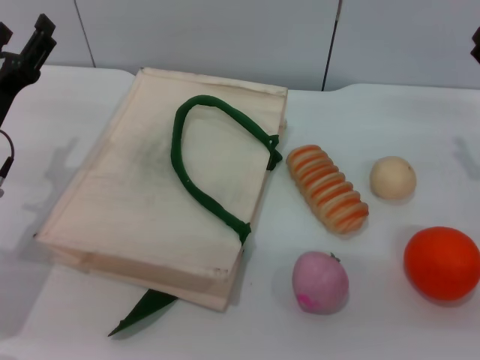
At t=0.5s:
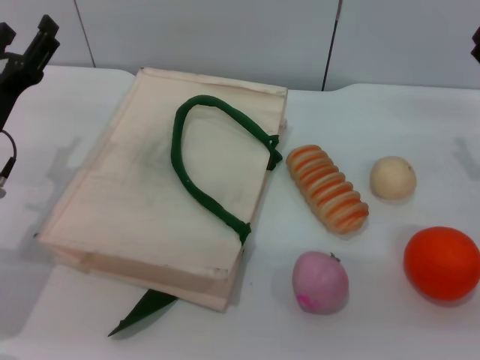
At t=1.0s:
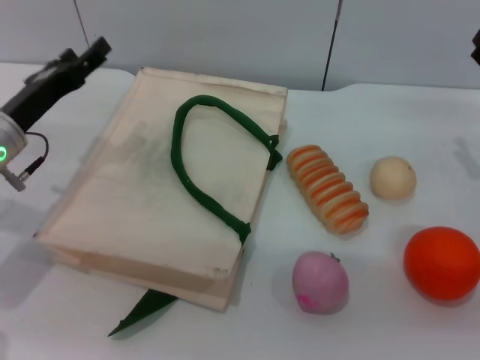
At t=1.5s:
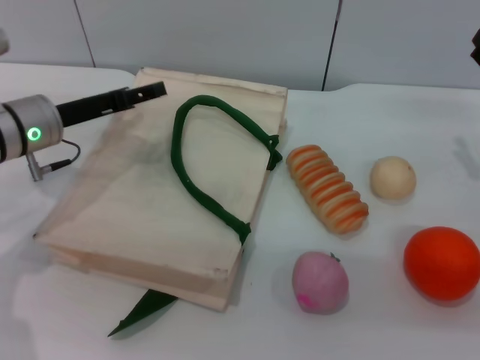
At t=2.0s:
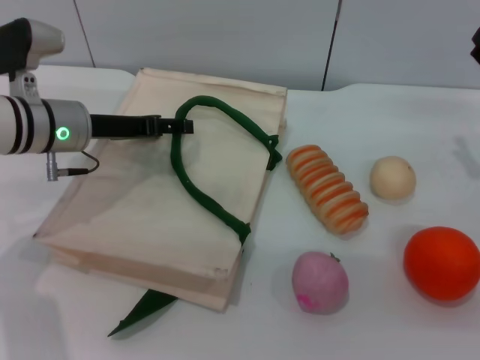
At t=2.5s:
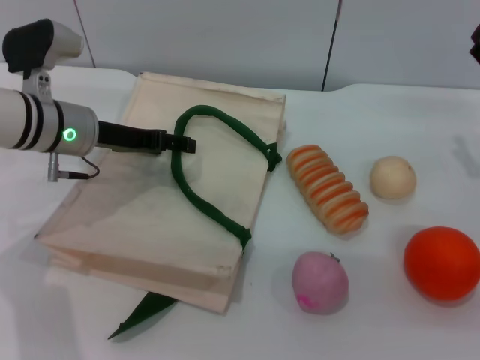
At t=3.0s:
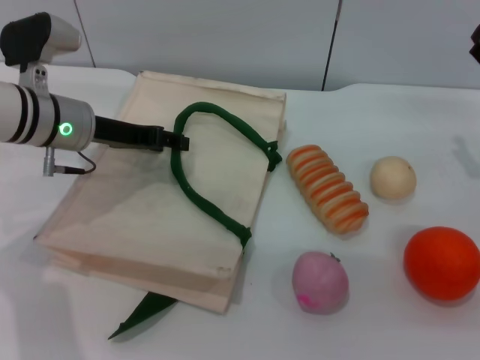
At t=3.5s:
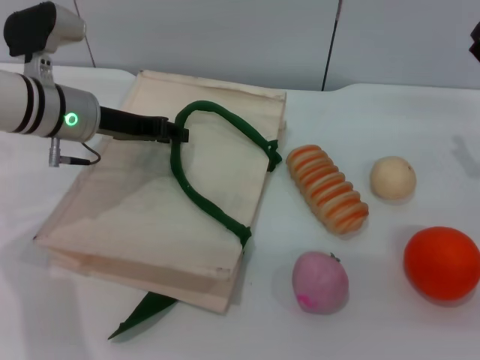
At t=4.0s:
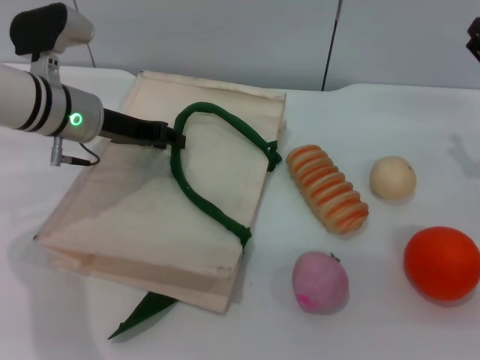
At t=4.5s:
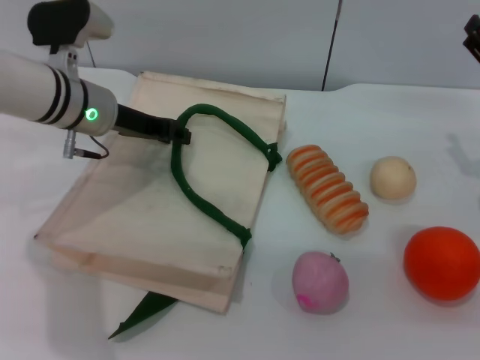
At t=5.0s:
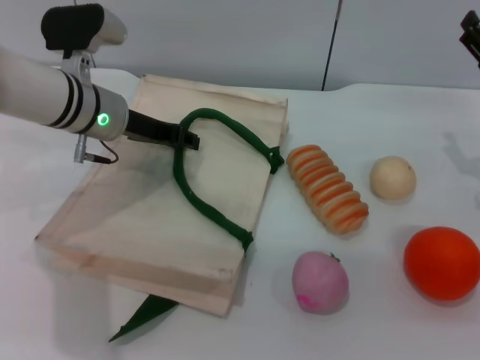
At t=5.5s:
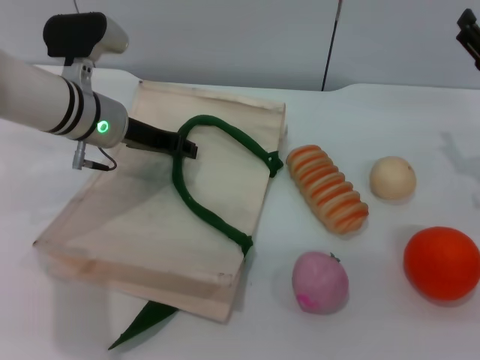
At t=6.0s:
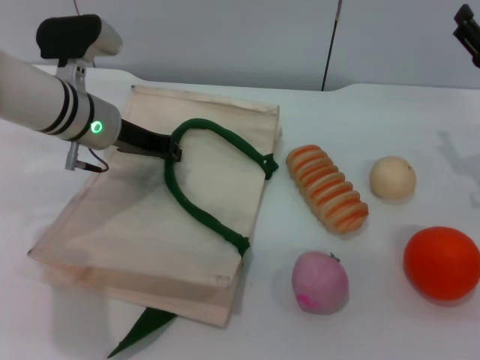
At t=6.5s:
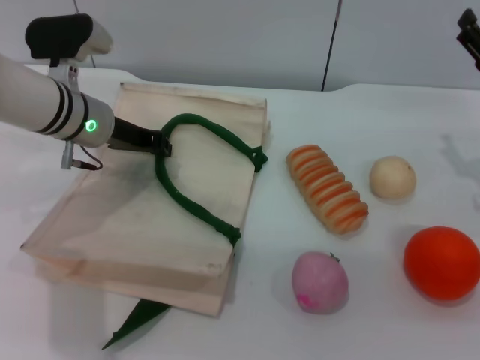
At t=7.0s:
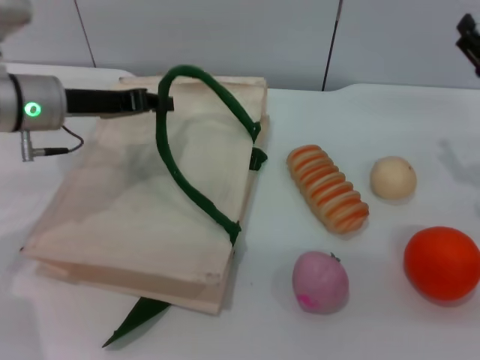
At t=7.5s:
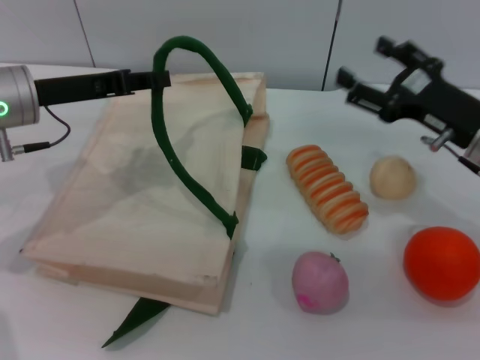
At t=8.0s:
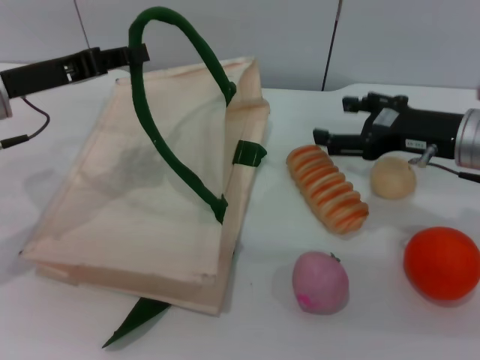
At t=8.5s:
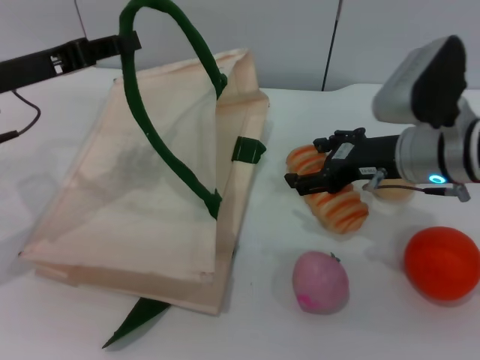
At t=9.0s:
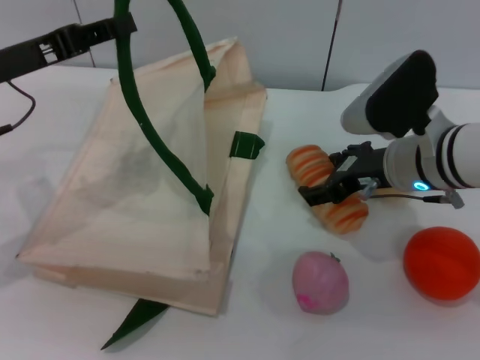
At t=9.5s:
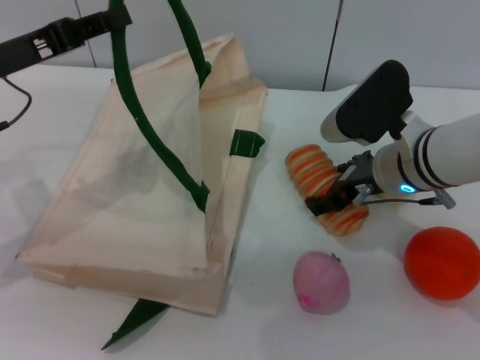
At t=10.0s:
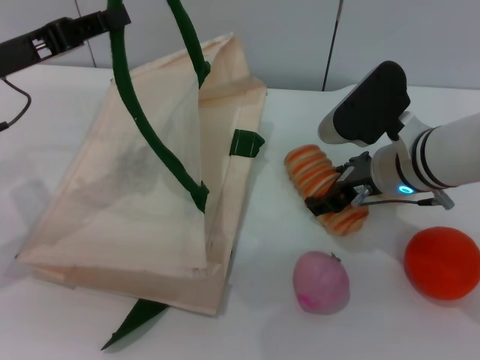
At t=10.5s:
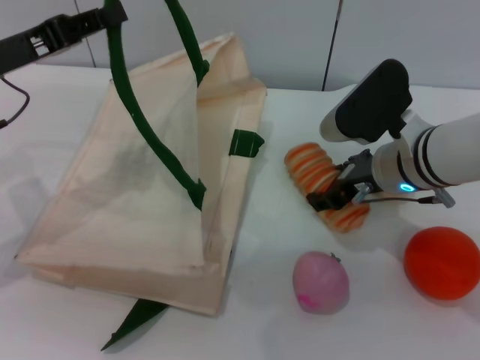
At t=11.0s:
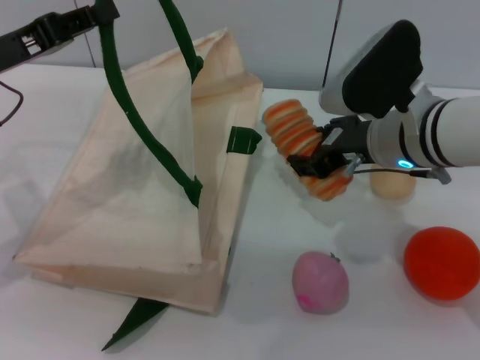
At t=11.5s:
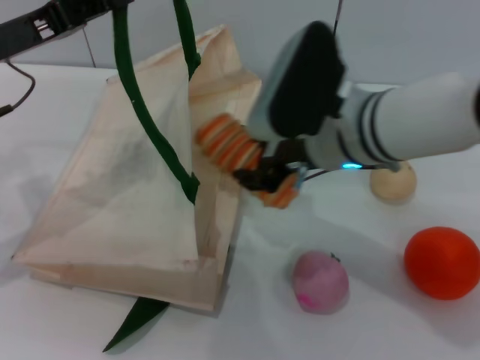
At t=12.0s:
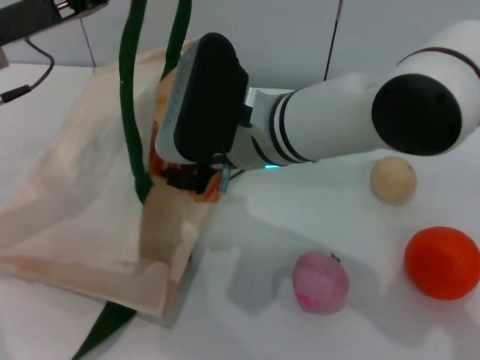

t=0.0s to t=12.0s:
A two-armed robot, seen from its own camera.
Task of the whole recording: pick up the bread and egg yolk pastry from the table and place it in the white handbag.
Step, t=0.0s to t=7.0s: Lift the woven bag with the left gripper to open it.
Step, t=7.5s to t=10.5s: Pick up the bread with the right gripper.
t=0.0s to t=2.0s: The left gripper travels forward by approximately 10 cm.
t=2.0s to t=4.0s: The left gripper closes its fingers.
t=4.0s to t=6.0s: The grippers stay close to where they were, moving slightly.
t=6.0s to t=8.0s: The left gripper travels to the left and backward by some 10 cm; the right gripper is displaced to the left by approximately 5 cm.
t=8.0s to t=10.0s: The right gripper moves to the left, some 10 cm.
t=10.0s to t=12.0s: The right gripper heads to the left and upward, covering approximately 15 cm, and closes its fingers.

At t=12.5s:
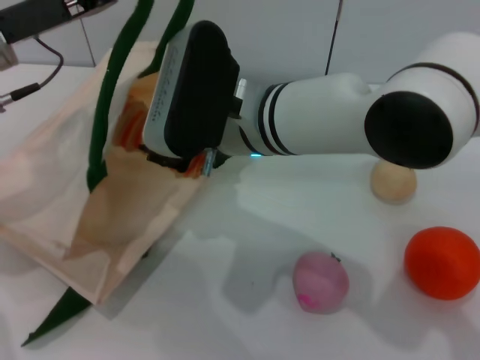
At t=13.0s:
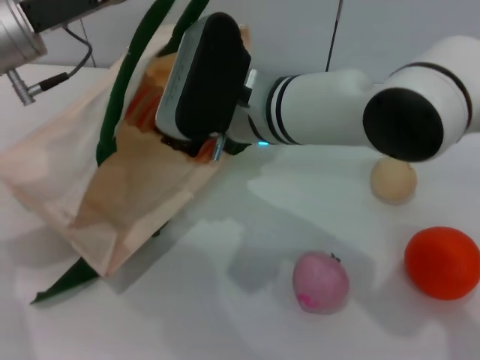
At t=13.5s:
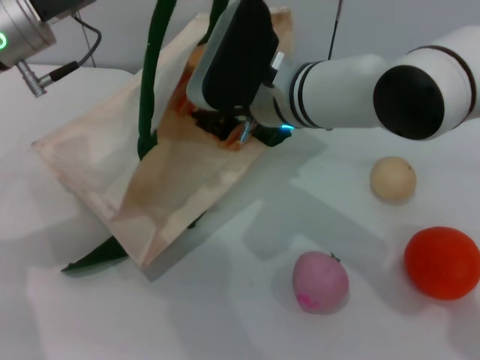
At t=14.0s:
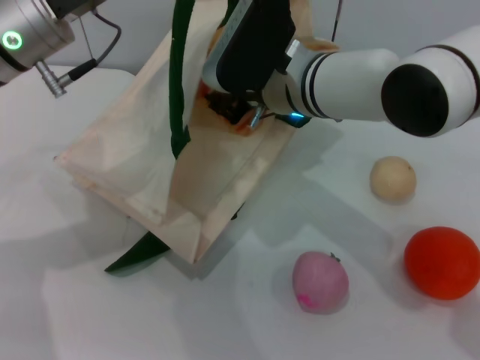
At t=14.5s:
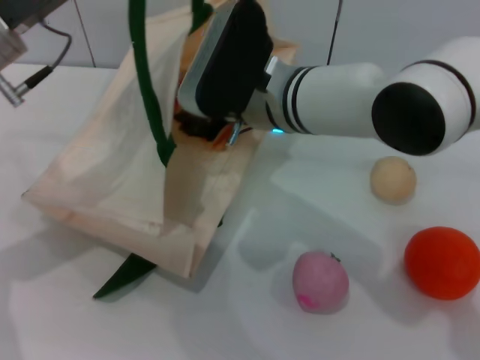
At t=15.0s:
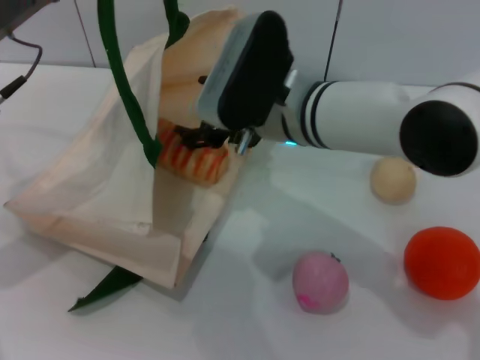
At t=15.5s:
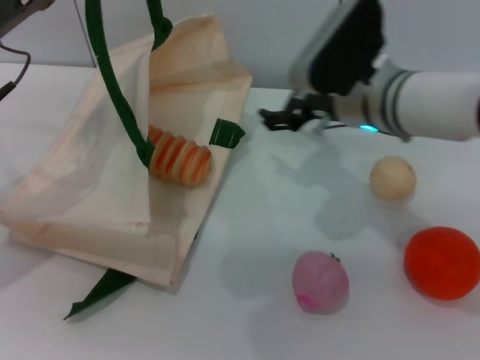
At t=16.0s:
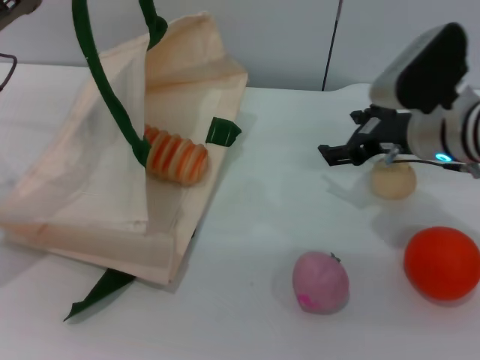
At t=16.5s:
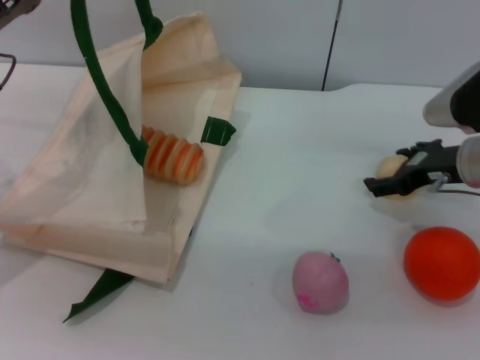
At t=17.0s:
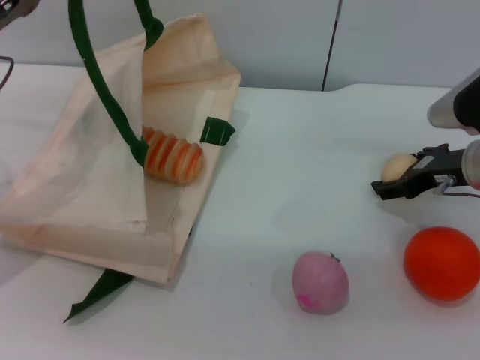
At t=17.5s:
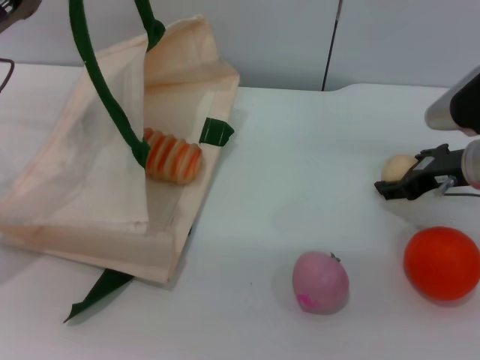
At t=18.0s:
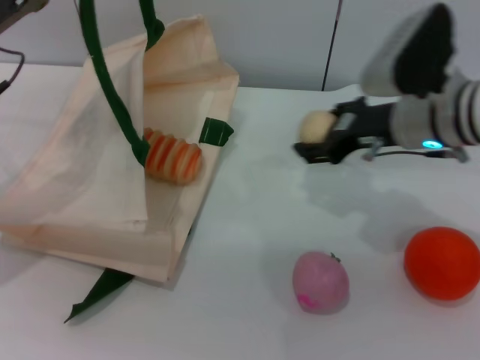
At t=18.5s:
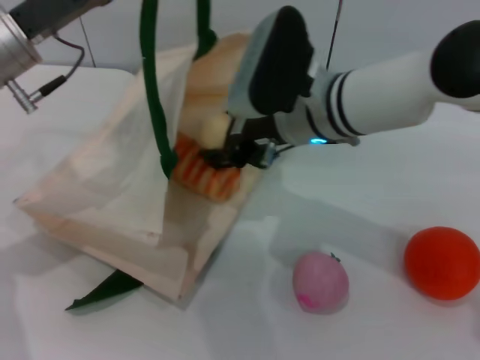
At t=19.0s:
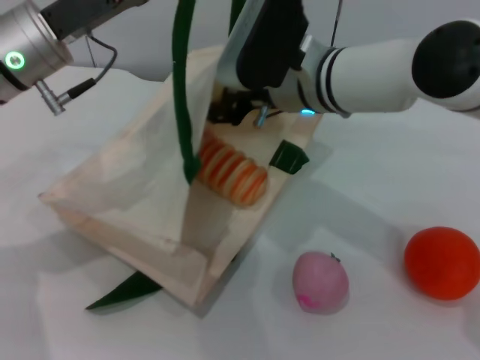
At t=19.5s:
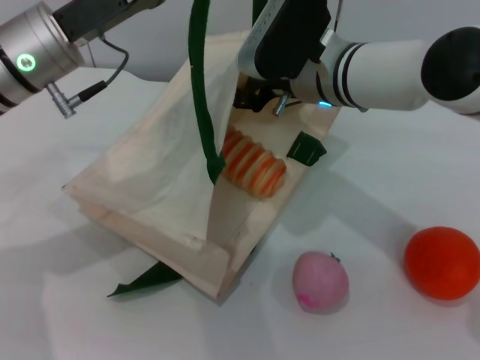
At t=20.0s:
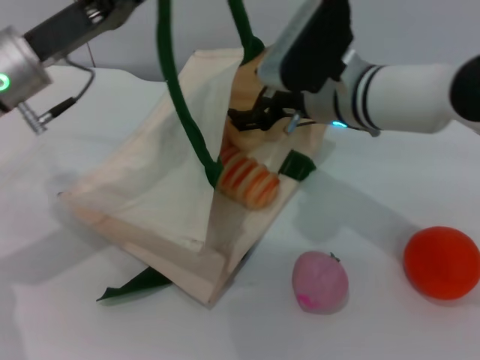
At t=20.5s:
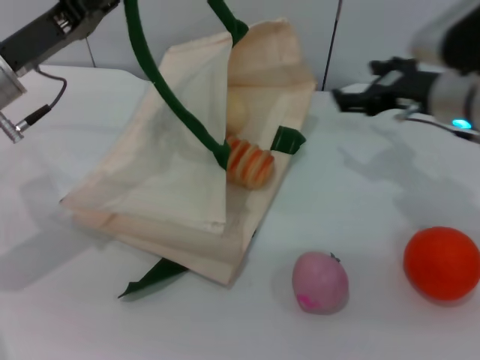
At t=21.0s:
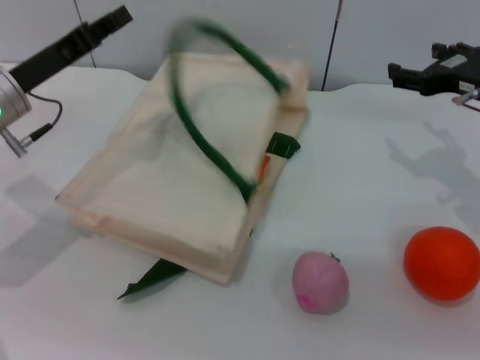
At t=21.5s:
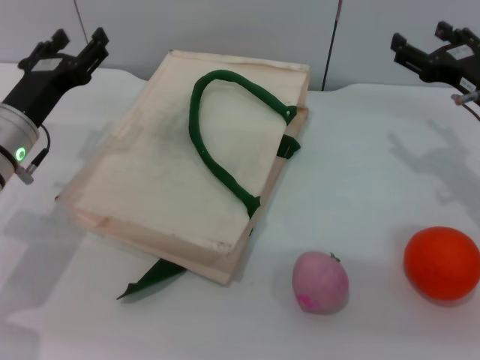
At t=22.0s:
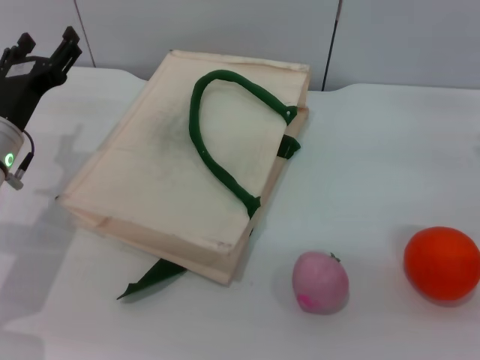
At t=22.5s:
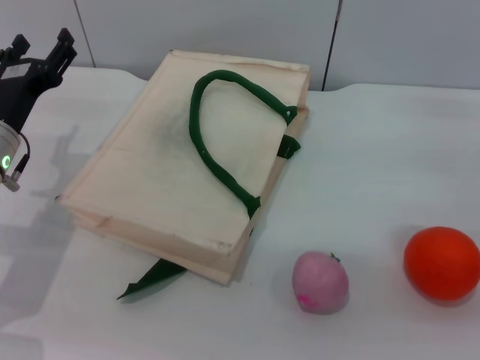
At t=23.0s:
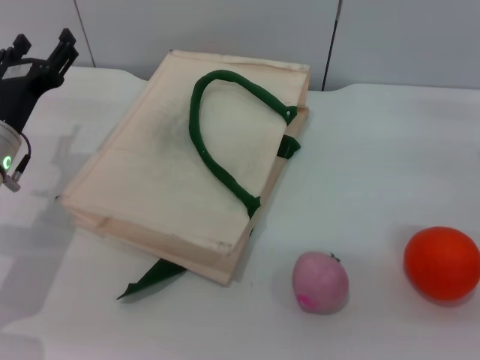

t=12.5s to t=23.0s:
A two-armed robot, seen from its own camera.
Task of the whole recording: pick up the bread and egg yolk pastry from the table and place it in the white handbag.
Step, t=12.5s to t=15.0s: Place the bread into the woven bag with the right gripper.
Step, t=15.5s to t=17.5s: Pick up the egg yolk pastry with the right gripper.
Step, t=18.0s to t=20.0s: Place the egg yolk pastry into the woven bag with the right gripper.
Step, t=20.5s to t=21.0s: Lower the woven bag with the left gripper to close it.
t=14.5s to t=16.5s: The right gripper moves to the right, roughly 20 cm, and opens its fingers; the left gripper changes place by some 5 cm.
t=16.5s to t=19.0s: The left gripper shifts approximately 10 cm to the right. The right gripper goes approximately 20 cm to the left, and closes.
t=19.0s to t=21.0s: The right gripper heads to the right, covering approximately 20 cm, and opens its fingers, while the left gripper travels downward and to the left by roughly 10 cm.
t=21.0s to t=23.0s: The right gripper is displaced downward, backward and to the right by some 10 cm; the left gripper shifts roughly 5 cm downward, and opens.

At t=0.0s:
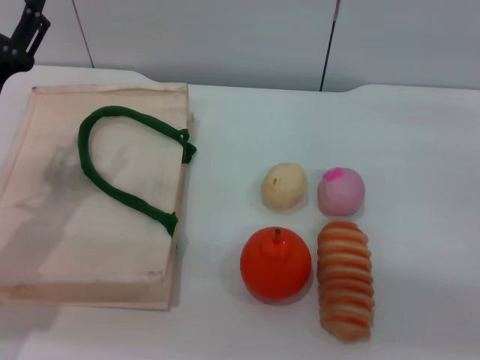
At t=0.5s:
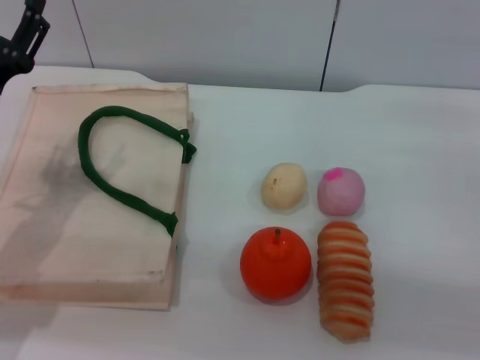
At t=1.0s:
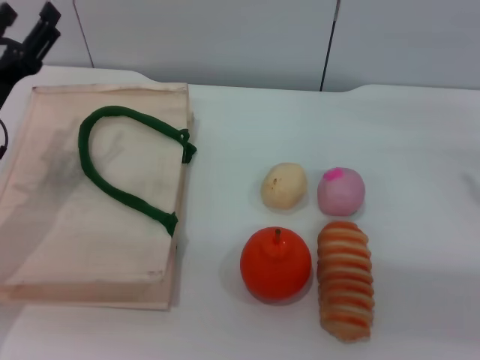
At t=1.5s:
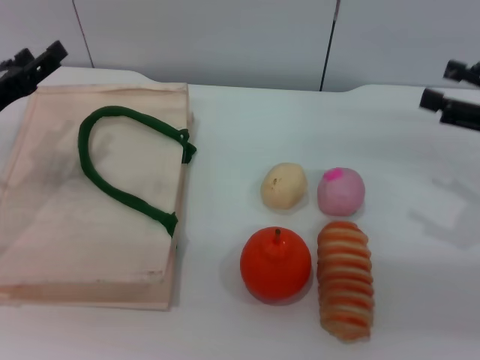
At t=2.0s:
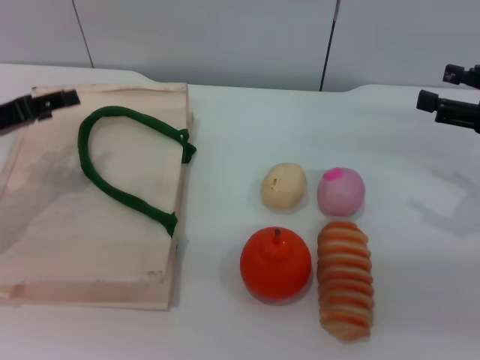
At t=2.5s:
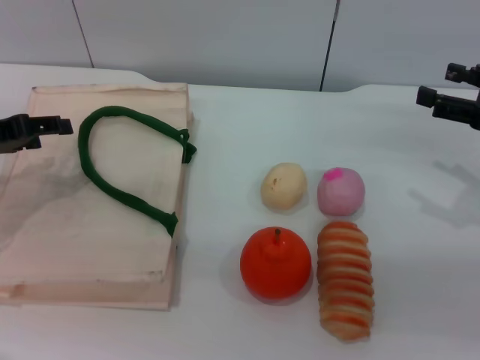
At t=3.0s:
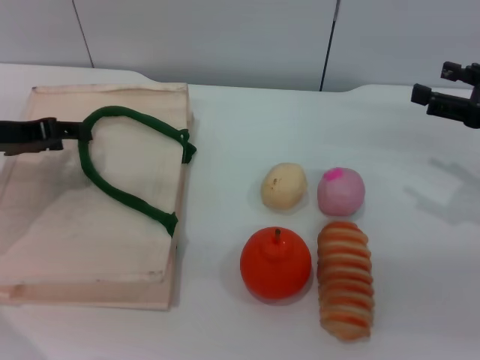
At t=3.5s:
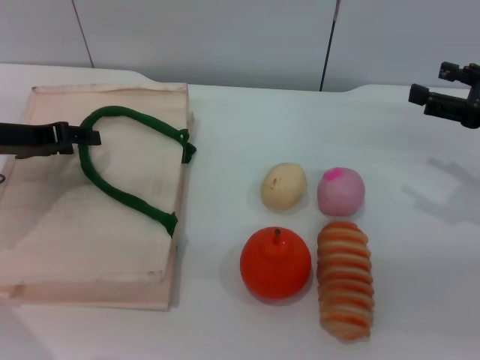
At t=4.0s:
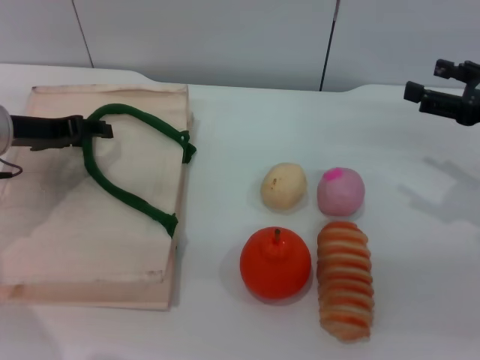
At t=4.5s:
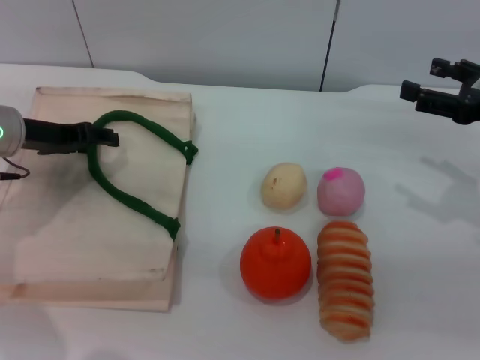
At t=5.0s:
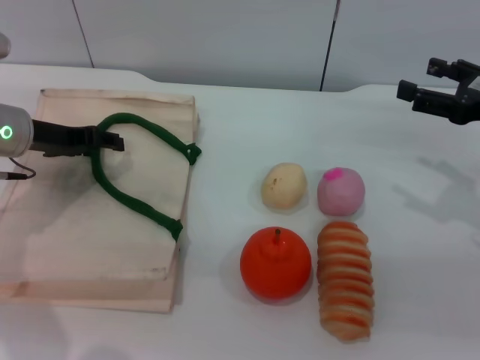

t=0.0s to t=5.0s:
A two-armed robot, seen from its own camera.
Task of the whole recording: pick up the egg yolk pastry from the table and place it in the white handbag.
t=0.0s to t=2.5s: The left gripper shifts roughly 5 cm to the left. Meanwhile the right gripper moves about 5 cm.
t=2.5s to t=5.0s: The left gripper heads forward and to the right, covering some 10 cm.
